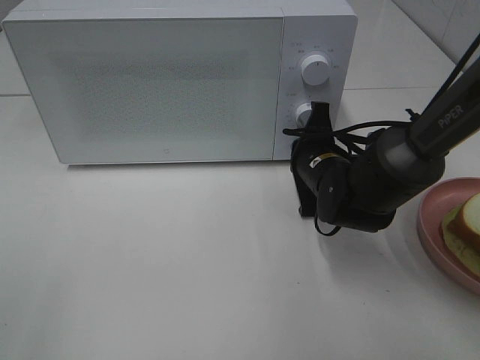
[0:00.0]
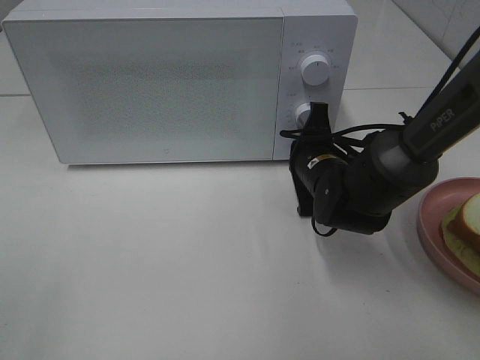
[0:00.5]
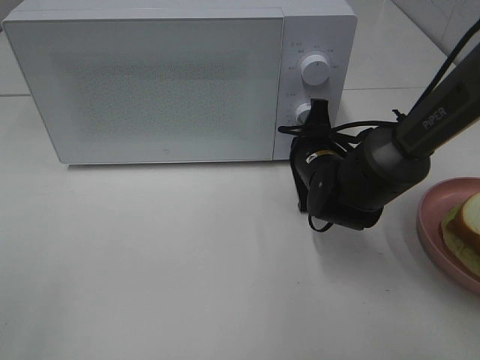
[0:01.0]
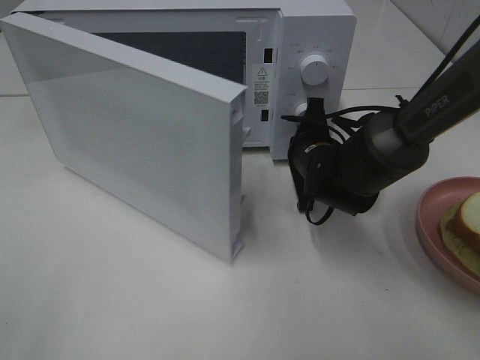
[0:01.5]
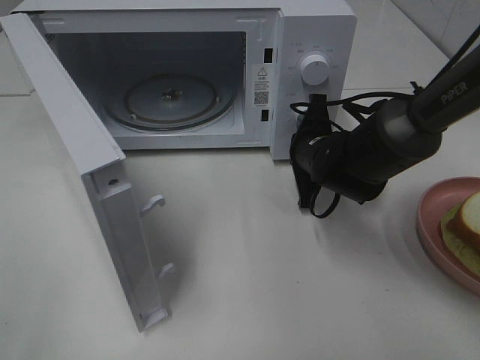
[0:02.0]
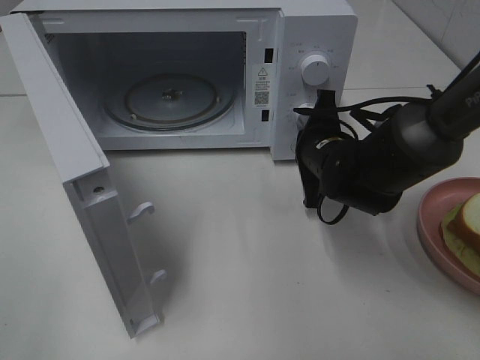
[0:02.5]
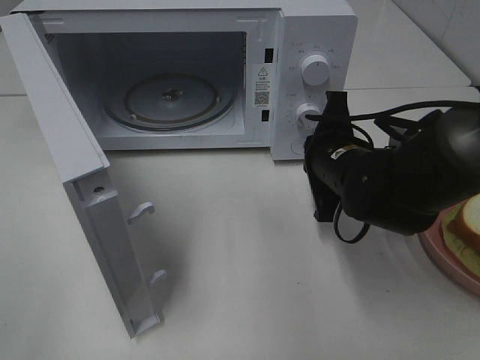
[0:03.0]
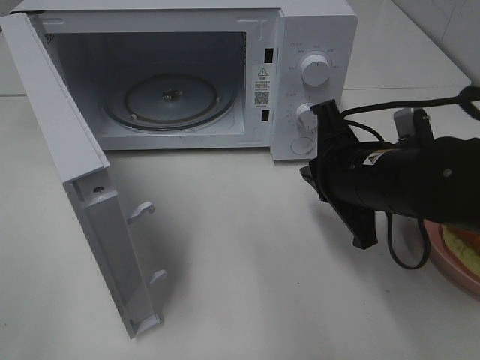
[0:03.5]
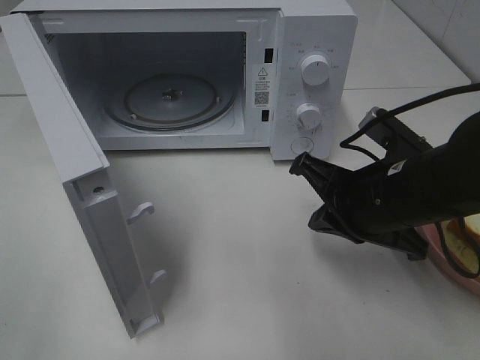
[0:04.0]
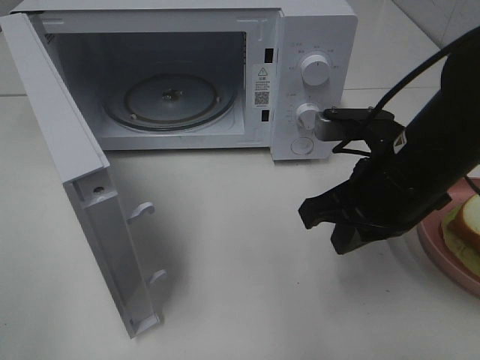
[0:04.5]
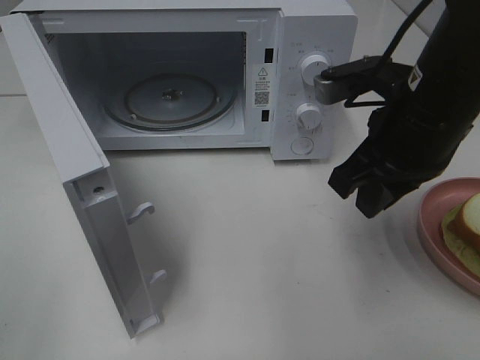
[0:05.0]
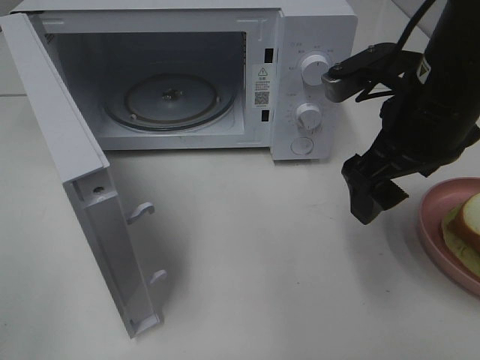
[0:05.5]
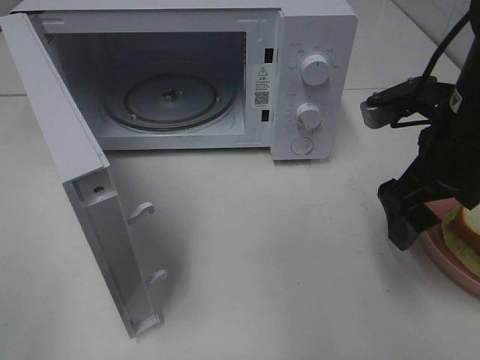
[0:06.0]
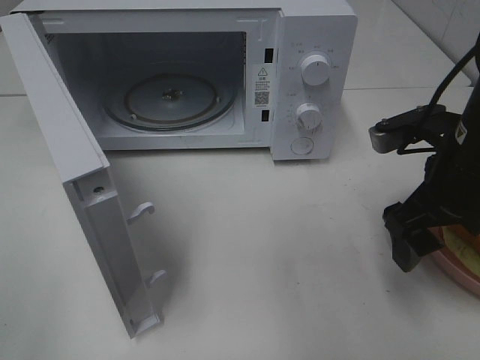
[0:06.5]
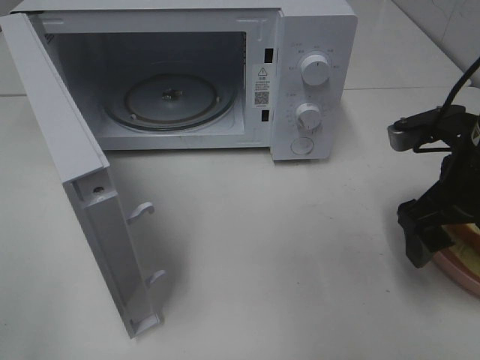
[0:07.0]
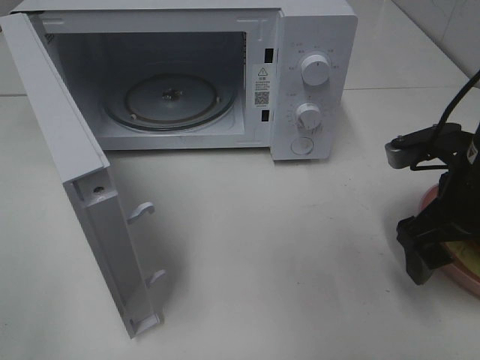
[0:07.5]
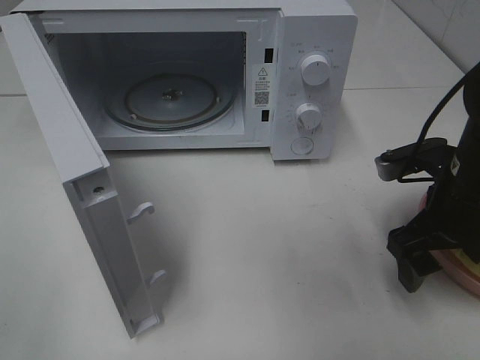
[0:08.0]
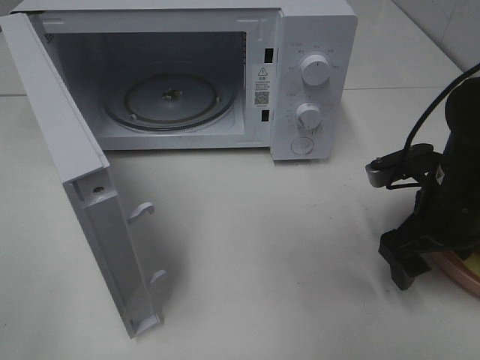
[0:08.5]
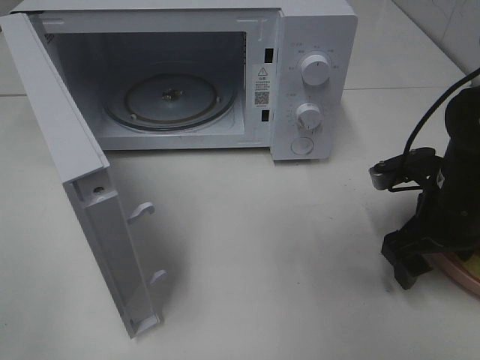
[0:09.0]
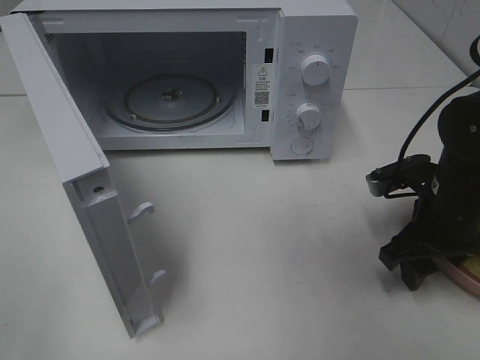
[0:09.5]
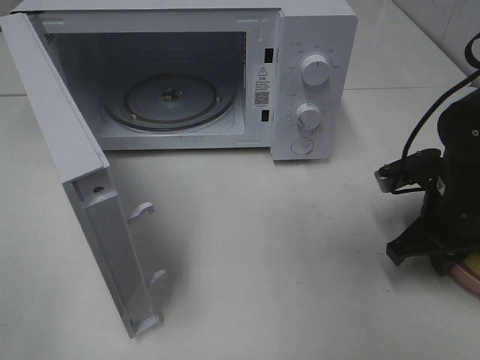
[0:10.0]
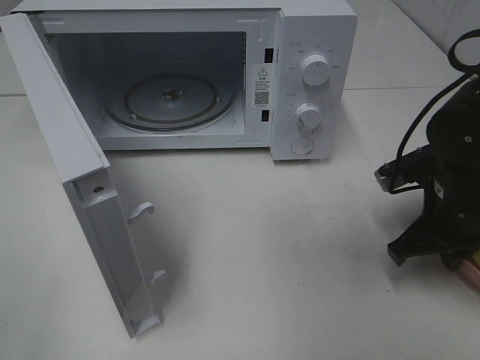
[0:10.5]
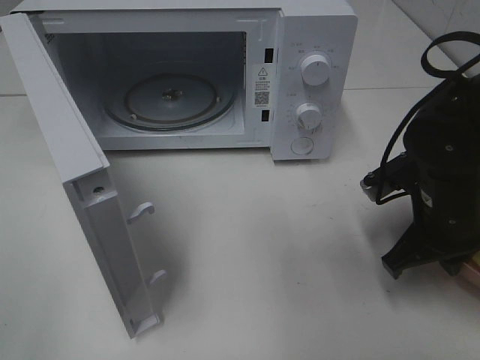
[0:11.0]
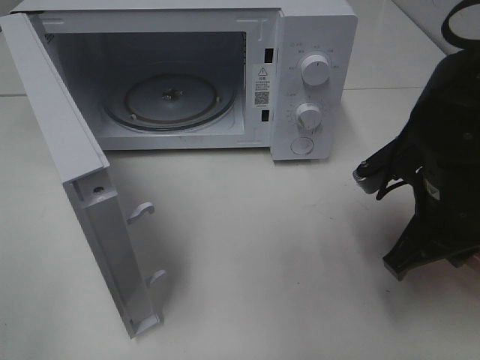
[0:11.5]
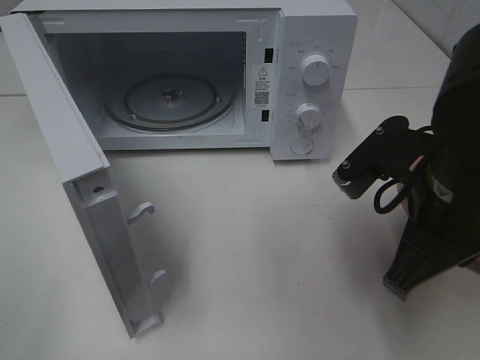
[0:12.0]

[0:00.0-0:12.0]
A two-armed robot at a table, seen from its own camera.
Task of the whole recording: Heat Sandwich.
Step, 0.0 to 2.5 s: Right hand: press the switch.
Step, 3.0 to 10.5 s: Right hand: grab the plate with the sandwich.
2.0 to 4.0 s: The right gripper moves backward and upward, some 15 cm.
4.0 to 6.0 s: The right gripper moves upward, about 5 cm, and opens its fingers.
6.0 to 8.0 s: The right gripper heads downward, covering roughly 5 cm.
8.0 to 10.0 s: The right gripper closes up.
10.0 to 12.0 s: The right gripper shifts about 15 cm upward, to the left and backward.

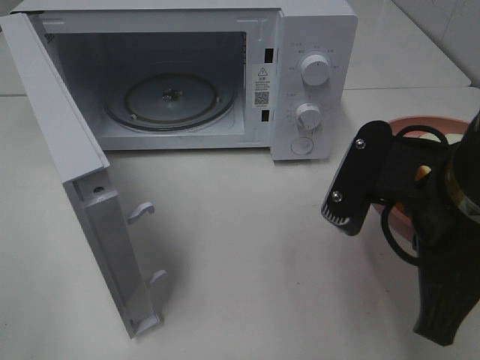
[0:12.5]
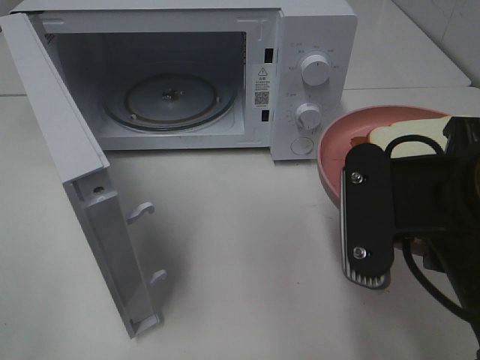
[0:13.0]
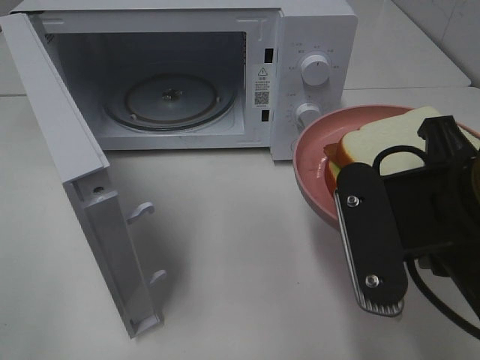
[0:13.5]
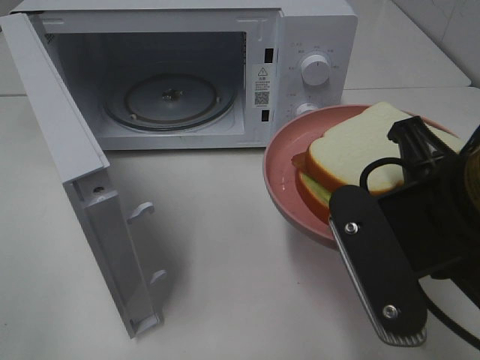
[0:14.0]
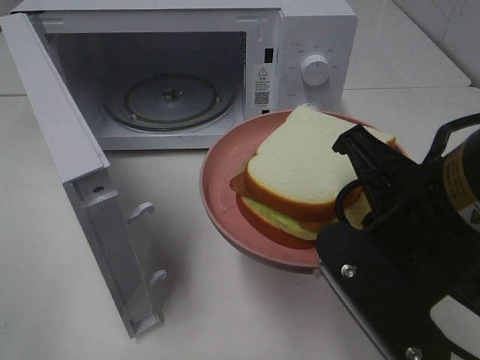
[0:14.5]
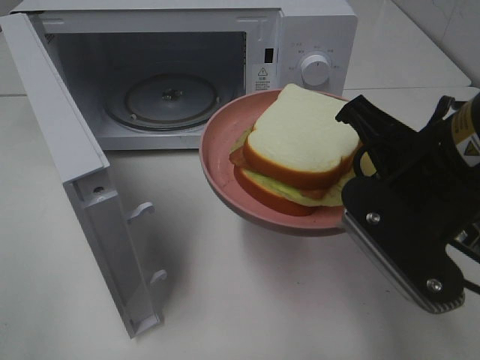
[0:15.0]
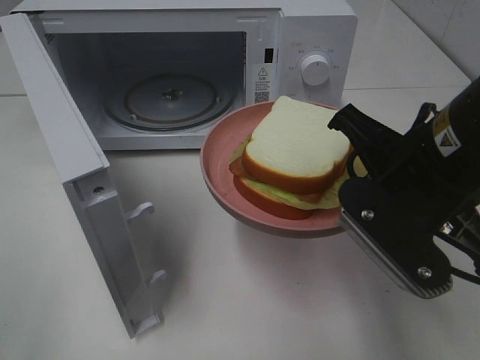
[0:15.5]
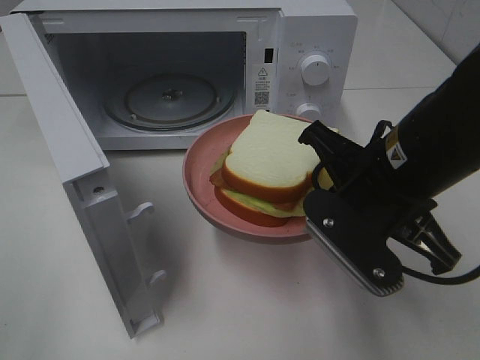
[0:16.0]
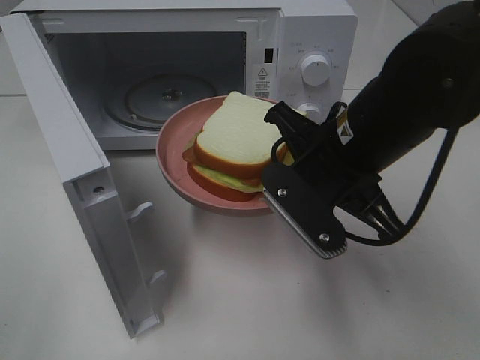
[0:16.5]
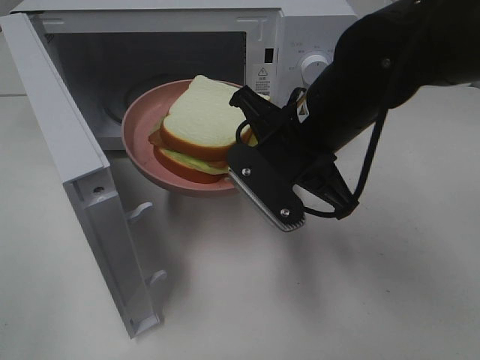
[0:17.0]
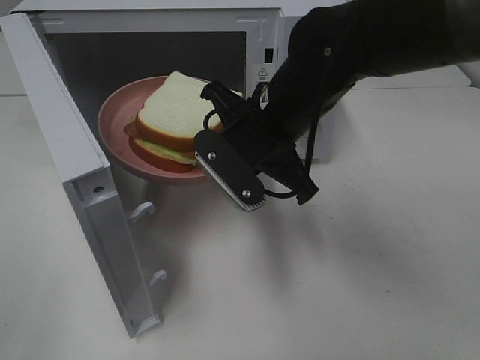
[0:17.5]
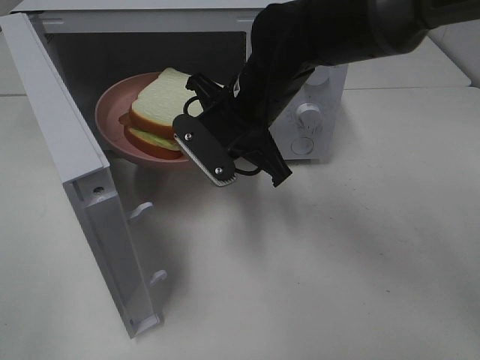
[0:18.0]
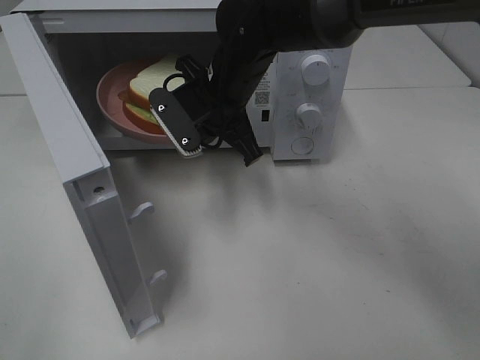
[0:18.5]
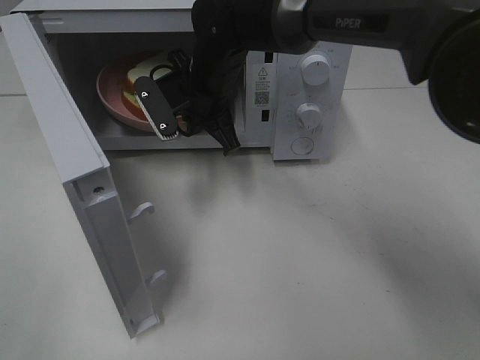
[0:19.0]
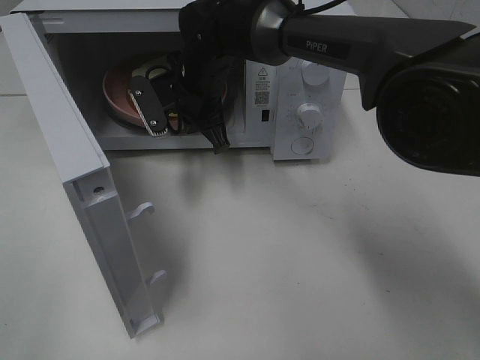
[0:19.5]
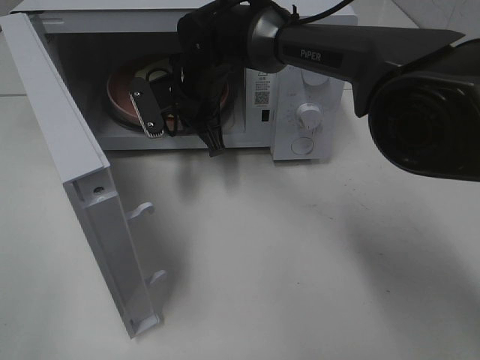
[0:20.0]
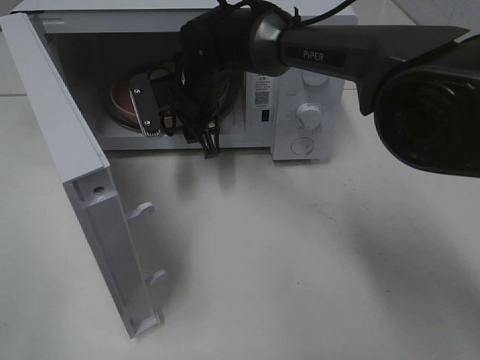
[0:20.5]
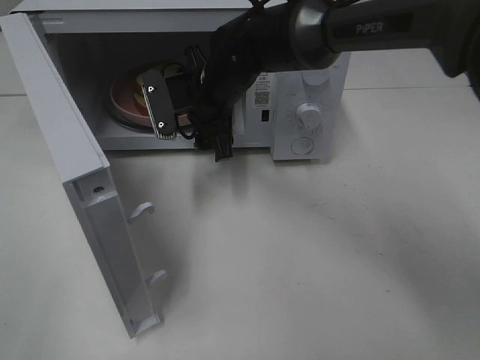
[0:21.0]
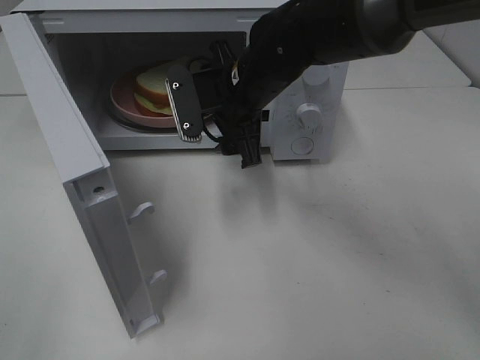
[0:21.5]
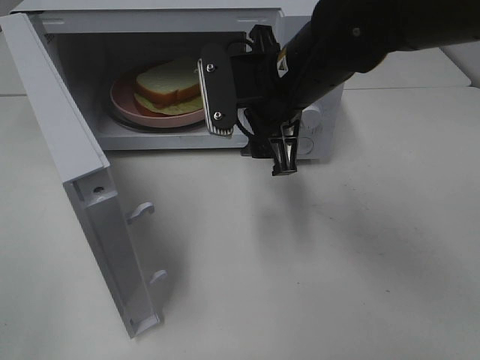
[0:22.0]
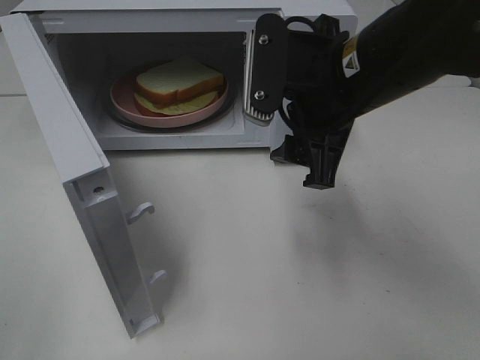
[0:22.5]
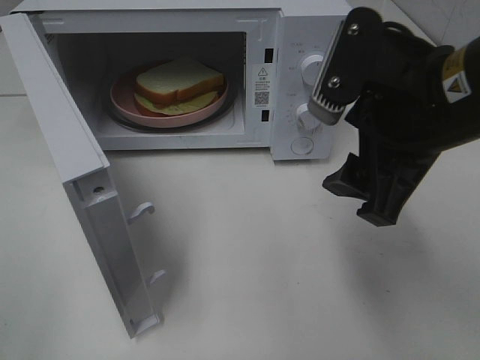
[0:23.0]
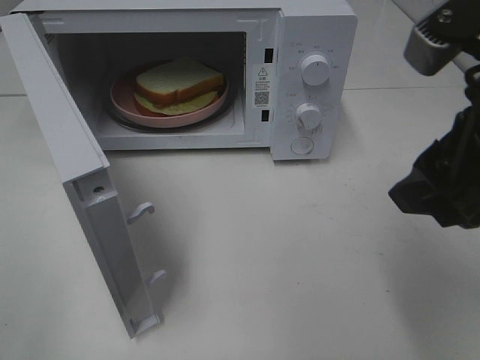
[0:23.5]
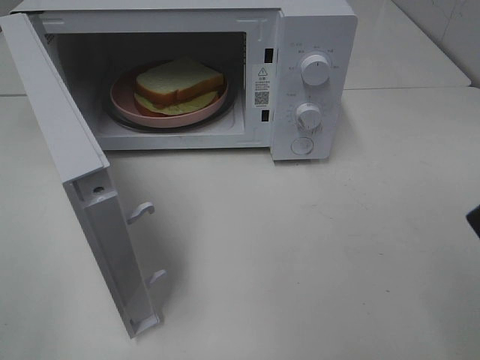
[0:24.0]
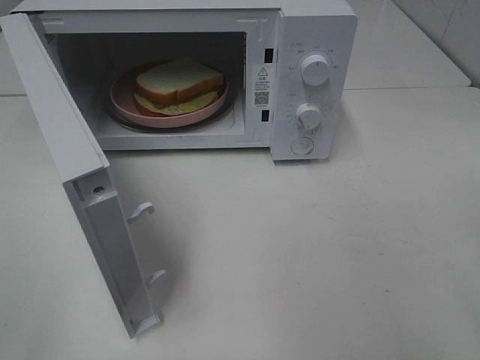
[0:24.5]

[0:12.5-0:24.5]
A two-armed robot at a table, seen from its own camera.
Task of the whole recording: Heat Sandwich.
Step, 12.5 to 20.5 s: Right hand: place the plate in the microwave.
14.5 to 16.5 s: The right gripper travels forward by roughly 10 cm.
16.5 to 18.5 s: The right gripper travels forward and to the left by about 15 cm.
18.5 to 20.5 s: The right gripper is displaced forward by roughly 5 cm, and opens up.
20.5 to 22.5 s: The right gripper heads backward, to the right and upward, covering some 25 cm.
22.5 to 24.5 s: The right gripper moves backward and to the right, approximately 25 cm.

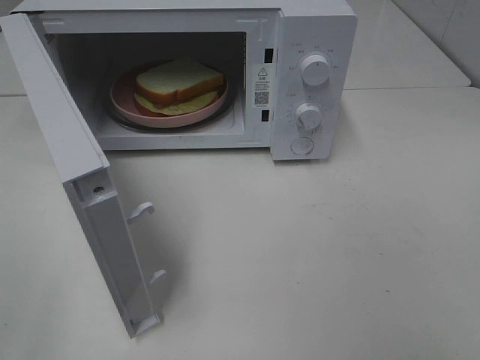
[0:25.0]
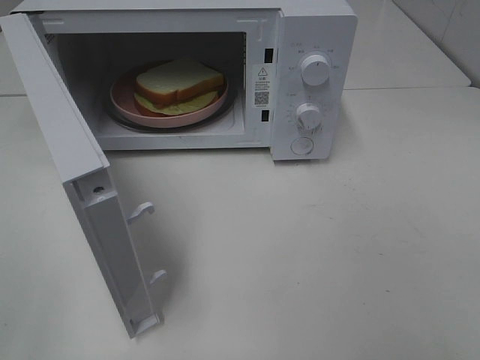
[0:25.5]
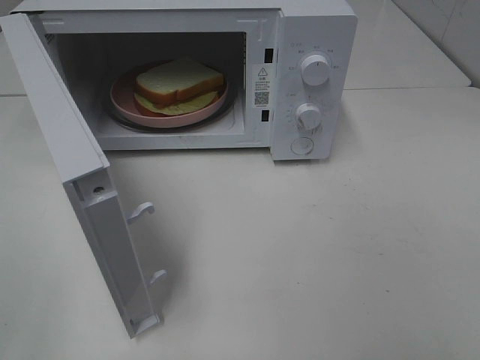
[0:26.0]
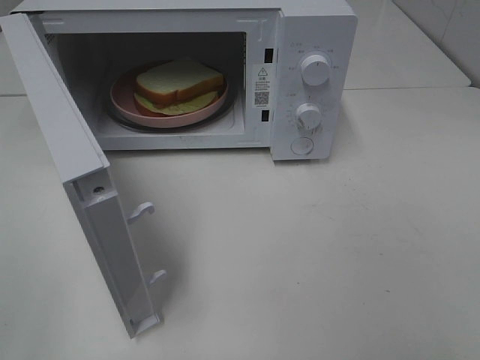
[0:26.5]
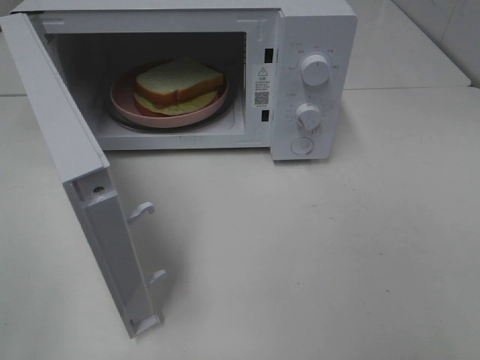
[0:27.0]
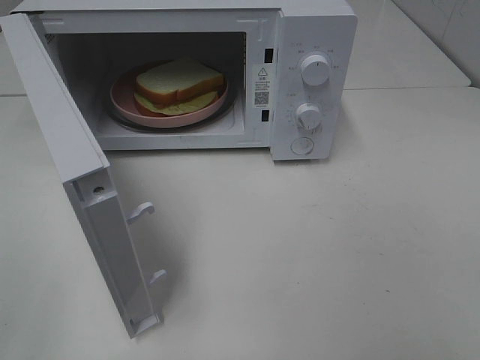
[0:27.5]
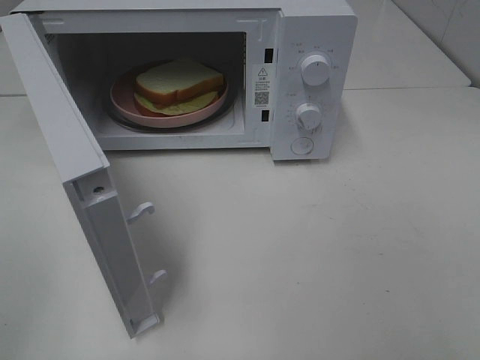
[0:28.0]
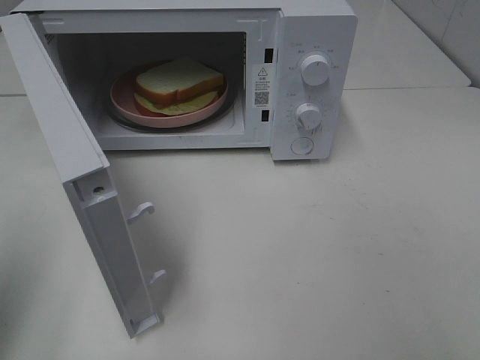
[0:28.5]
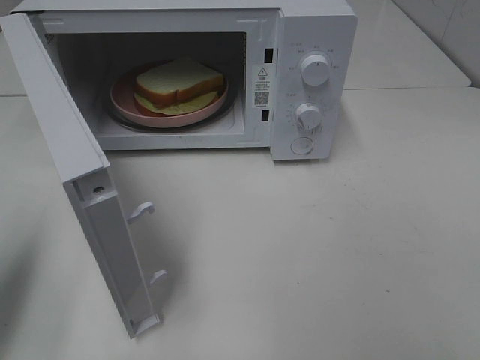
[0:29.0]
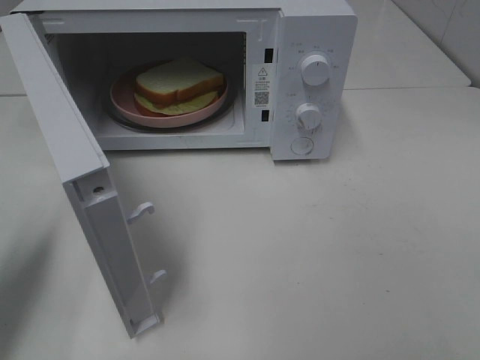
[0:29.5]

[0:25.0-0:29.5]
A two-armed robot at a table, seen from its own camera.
Task of the whole recording: Heat Sandwich.
27.0 to 29.5 s: The left gripper travels forward and downward by roughly 20 cm, and closes its fingers.
